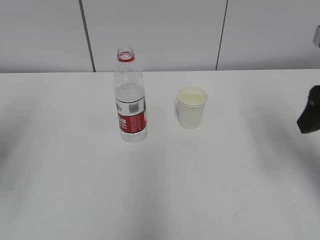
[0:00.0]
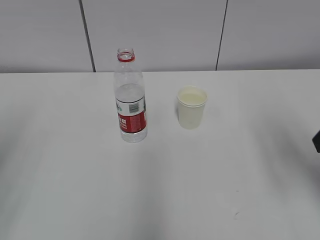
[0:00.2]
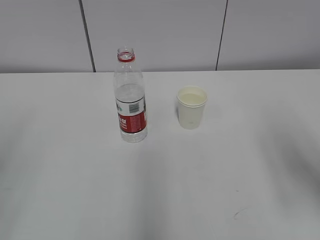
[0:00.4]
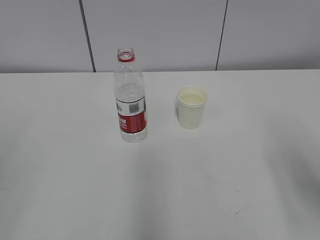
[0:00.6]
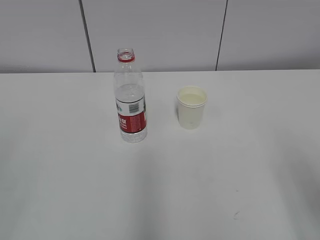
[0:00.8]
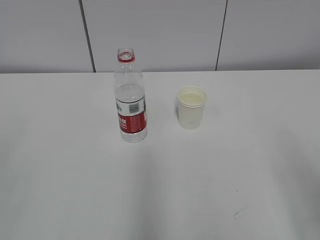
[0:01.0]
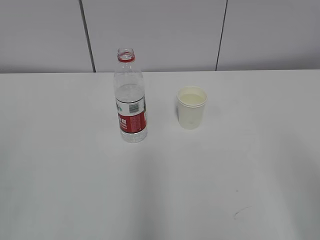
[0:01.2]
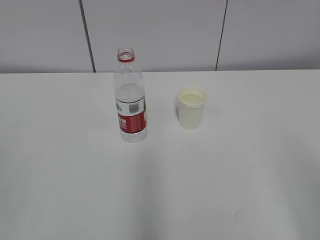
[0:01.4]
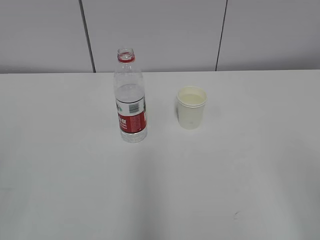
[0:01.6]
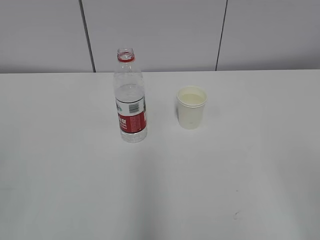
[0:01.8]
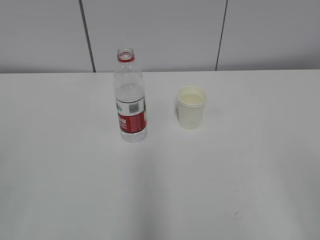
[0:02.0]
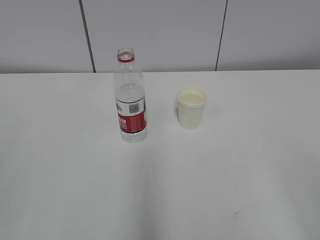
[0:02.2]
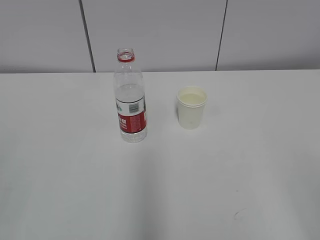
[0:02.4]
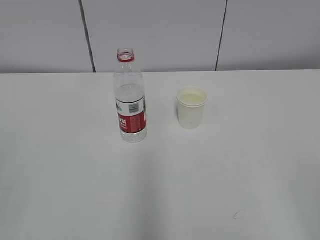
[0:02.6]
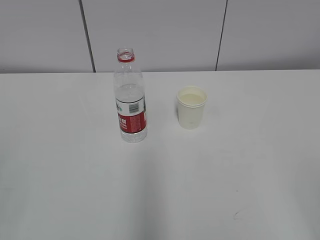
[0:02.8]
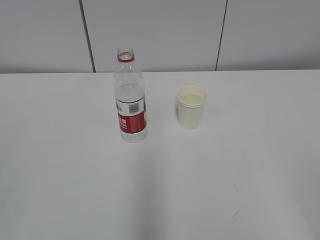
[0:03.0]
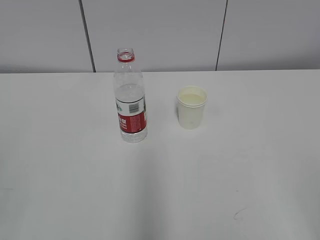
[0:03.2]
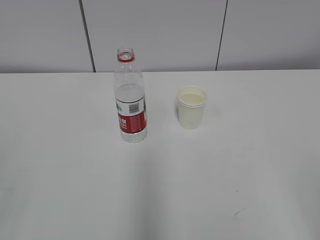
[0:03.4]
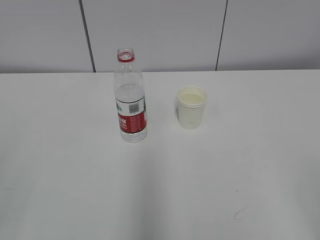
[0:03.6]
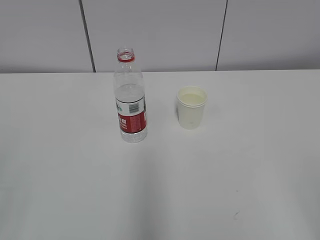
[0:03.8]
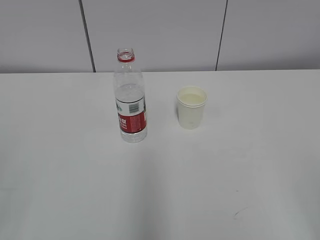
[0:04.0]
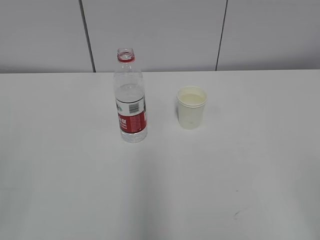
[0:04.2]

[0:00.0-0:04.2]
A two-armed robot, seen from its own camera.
0:00.0 to 0:01.4: The right gripper travels backward by some 20 cm.
0:02.8 to 0:04.2: The two grippers keep their place.

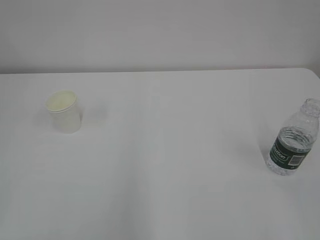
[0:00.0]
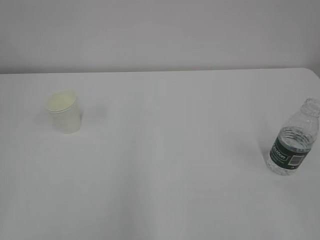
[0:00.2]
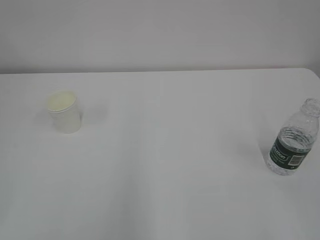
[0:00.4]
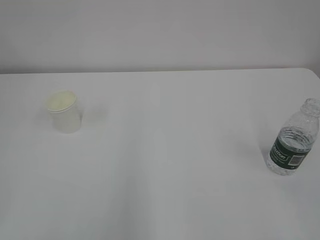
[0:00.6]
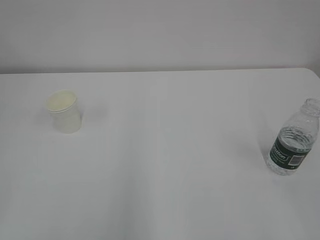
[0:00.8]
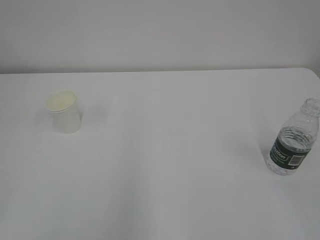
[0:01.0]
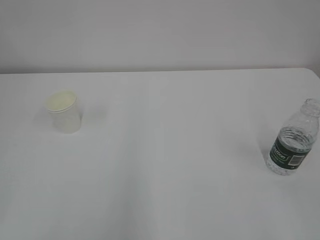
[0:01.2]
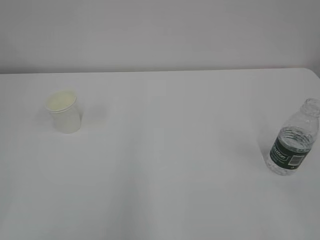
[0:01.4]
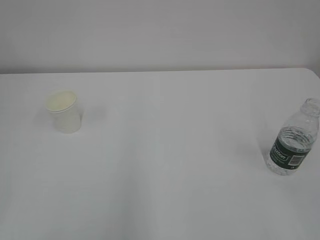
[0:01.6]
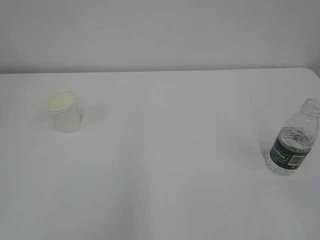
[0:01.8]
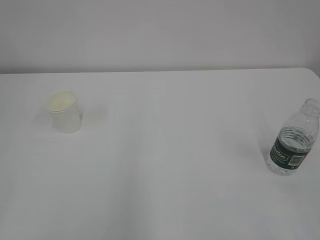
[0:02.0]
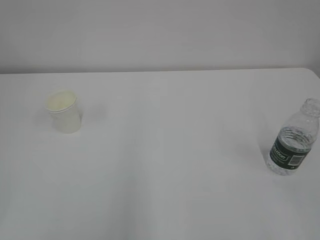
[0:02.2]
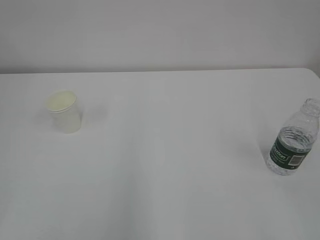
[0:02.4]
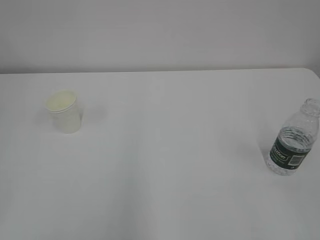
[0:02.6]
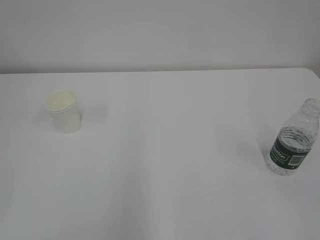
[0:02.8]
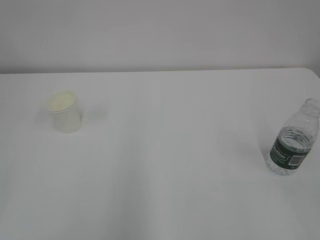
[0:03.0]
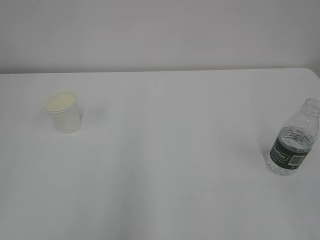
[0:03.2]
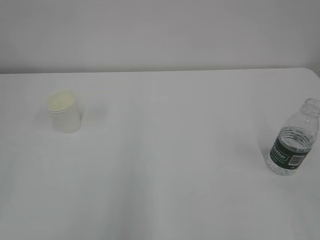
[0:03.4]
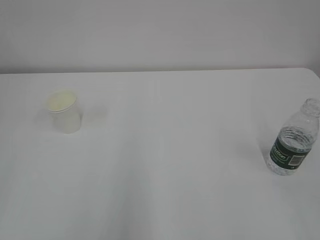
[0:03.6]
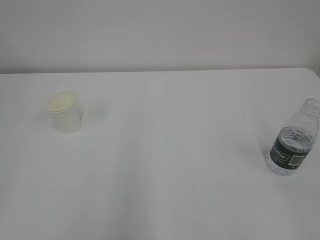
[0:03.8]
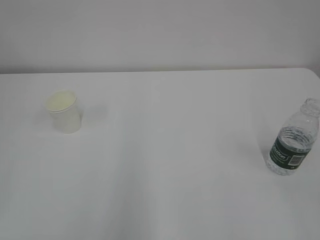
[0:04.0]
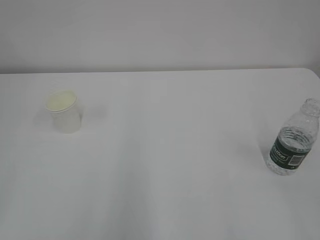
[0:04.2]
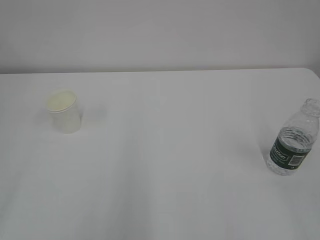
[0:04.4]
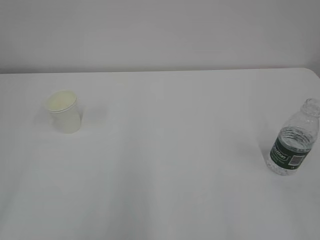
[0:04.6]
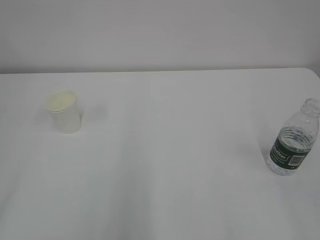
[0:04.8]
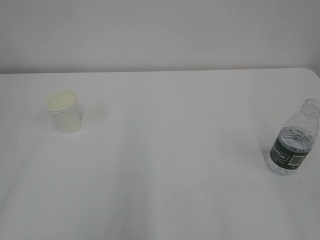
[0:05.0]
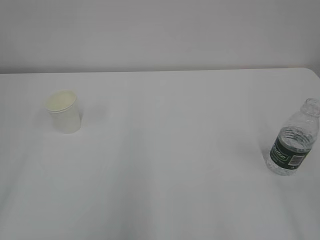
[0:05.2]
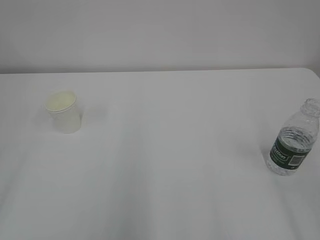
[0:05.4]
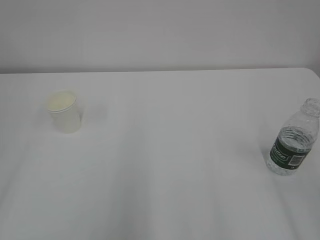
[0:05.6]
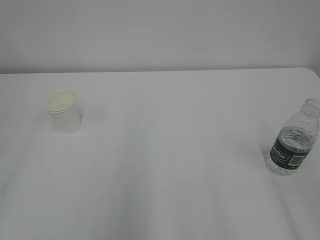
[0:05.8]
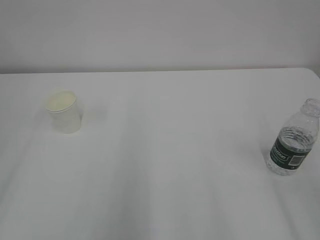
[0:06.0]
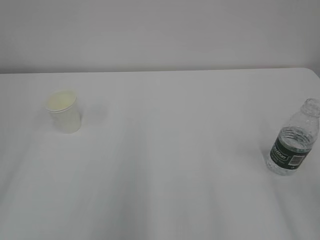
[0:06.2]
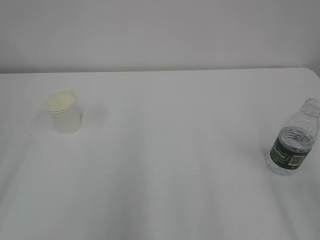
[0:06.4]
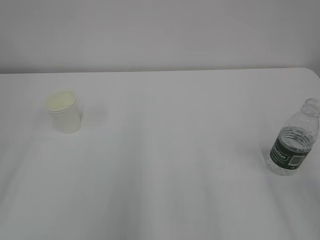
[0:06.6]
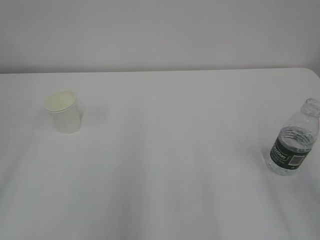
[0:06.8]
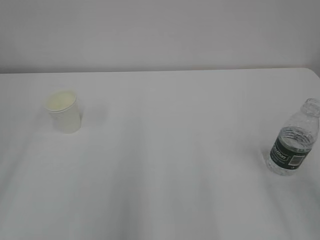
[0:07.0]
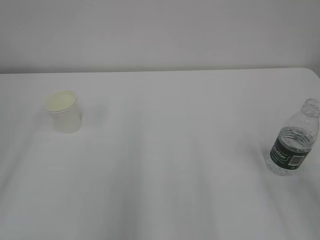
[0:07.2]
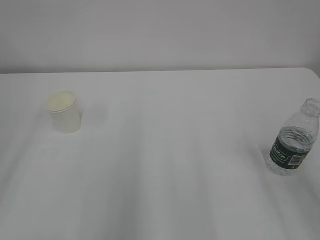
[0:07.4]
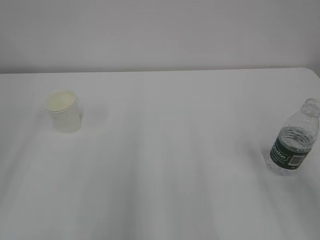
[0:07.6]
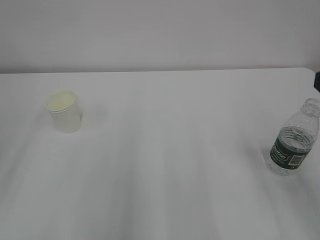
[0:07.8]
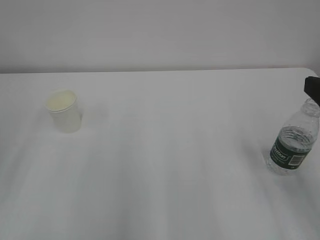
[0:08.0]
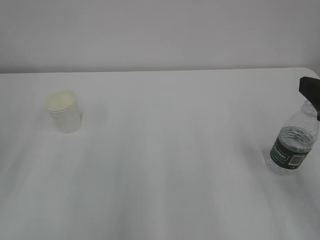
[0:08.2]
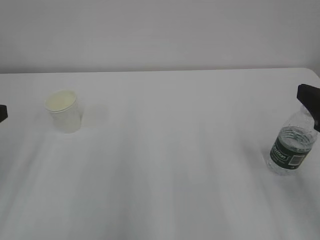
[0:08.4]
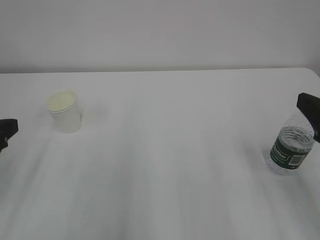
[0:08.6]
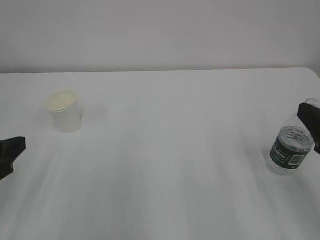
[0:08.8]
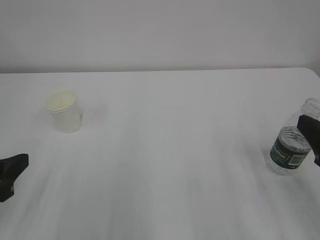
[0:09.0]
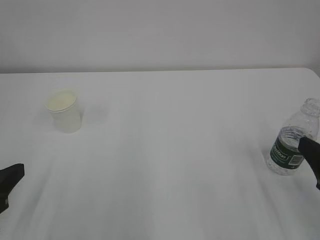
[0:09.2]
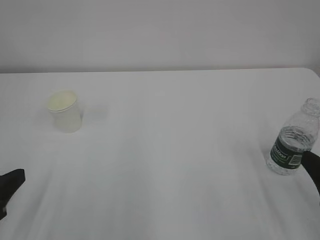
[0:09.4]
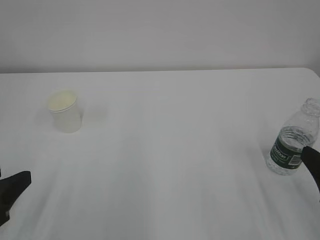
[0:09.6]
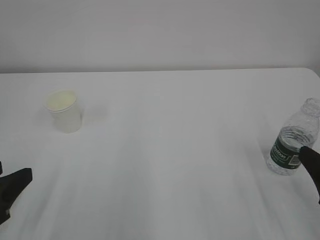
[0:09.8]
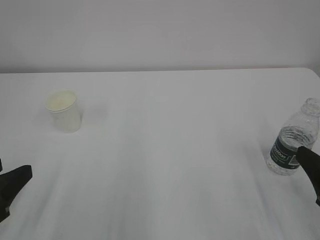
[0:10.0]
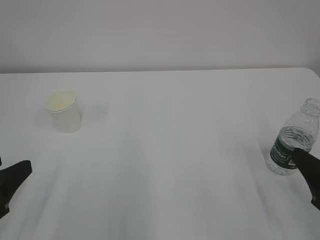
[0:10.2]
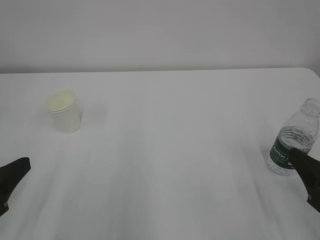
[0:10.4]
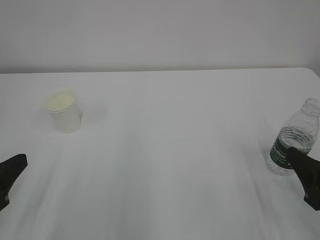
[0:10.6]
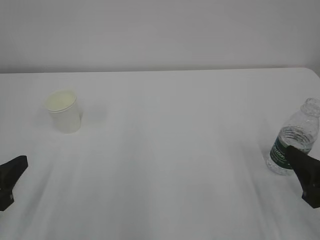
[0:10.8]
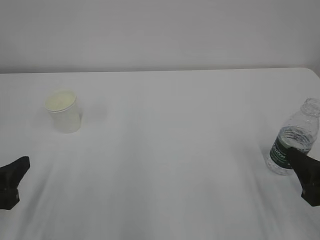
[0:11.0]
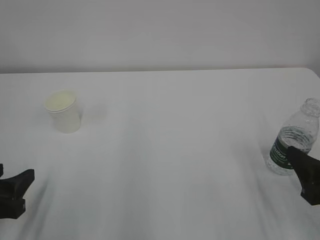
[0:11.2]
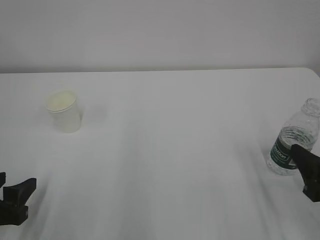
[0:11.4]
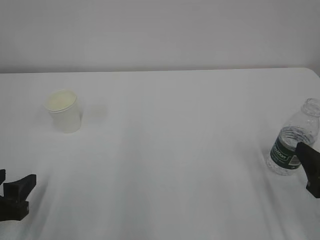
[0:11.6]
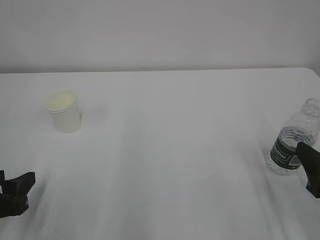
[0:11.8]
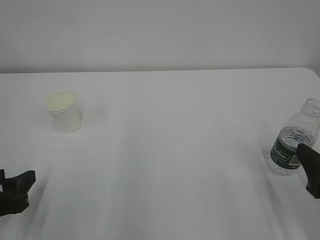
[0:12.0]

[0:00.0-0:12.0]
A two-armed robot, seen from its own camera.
0:07.6 to 0:09.0: The grippers both shift downward by roughly 10 cm.
0:09.0 to 0:10.4: The right gripper ends up roughly 5 cm from where it was.
0:10.4 to 0:12.0: The left gripper goes some 5 cm downward.

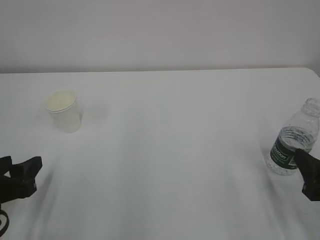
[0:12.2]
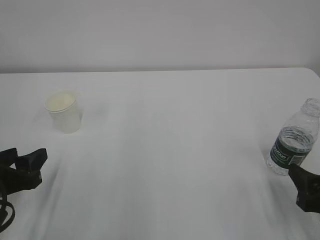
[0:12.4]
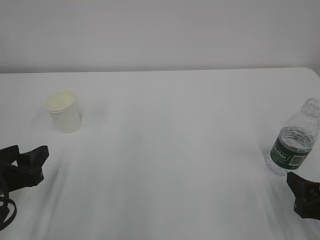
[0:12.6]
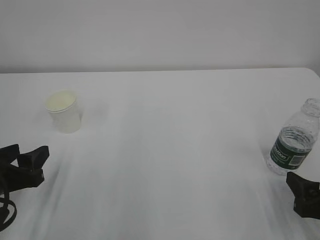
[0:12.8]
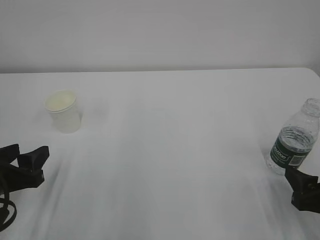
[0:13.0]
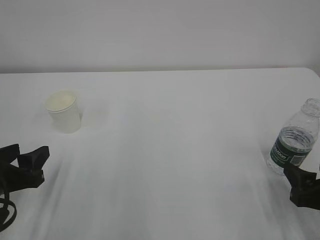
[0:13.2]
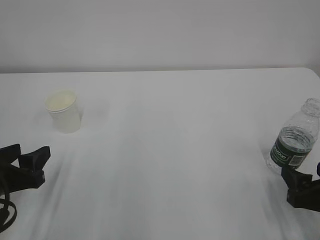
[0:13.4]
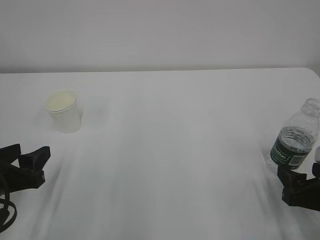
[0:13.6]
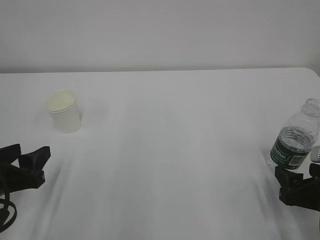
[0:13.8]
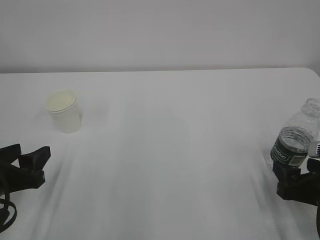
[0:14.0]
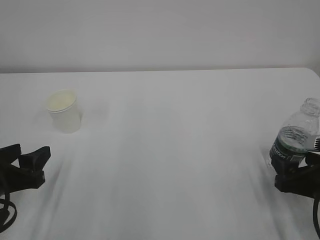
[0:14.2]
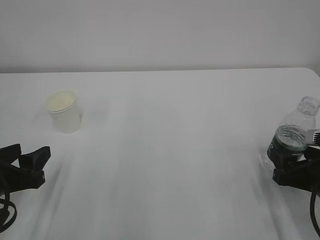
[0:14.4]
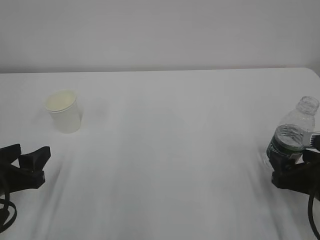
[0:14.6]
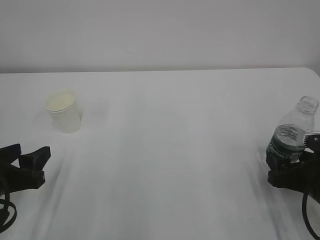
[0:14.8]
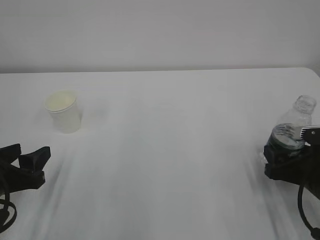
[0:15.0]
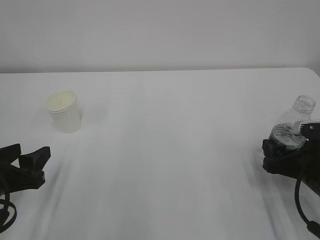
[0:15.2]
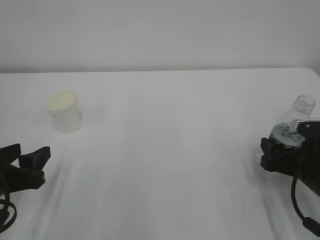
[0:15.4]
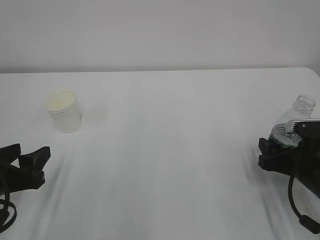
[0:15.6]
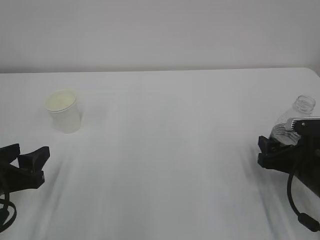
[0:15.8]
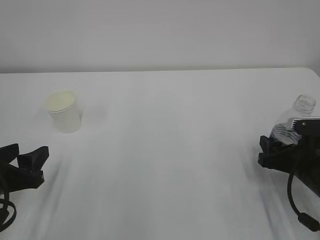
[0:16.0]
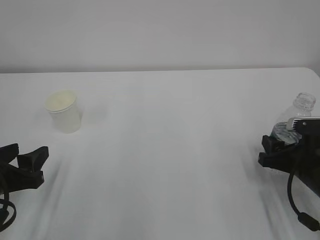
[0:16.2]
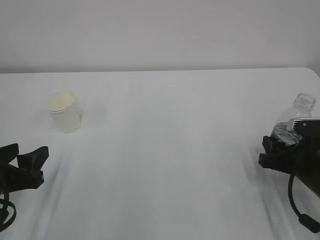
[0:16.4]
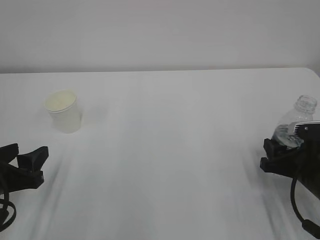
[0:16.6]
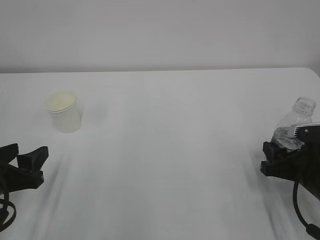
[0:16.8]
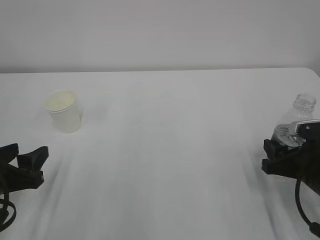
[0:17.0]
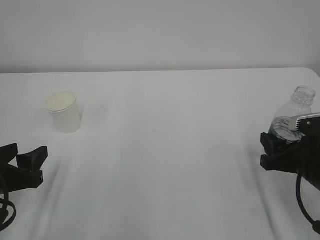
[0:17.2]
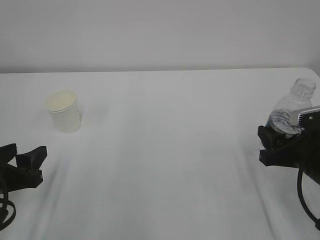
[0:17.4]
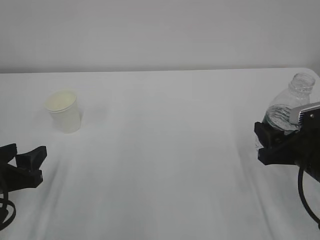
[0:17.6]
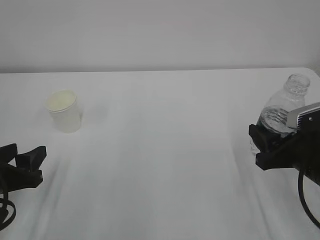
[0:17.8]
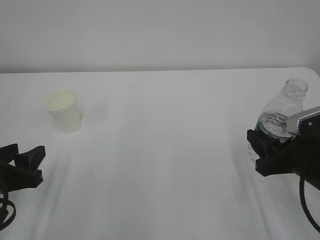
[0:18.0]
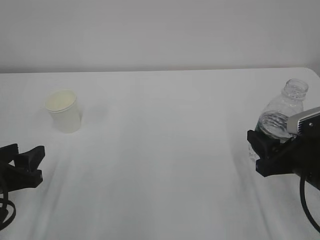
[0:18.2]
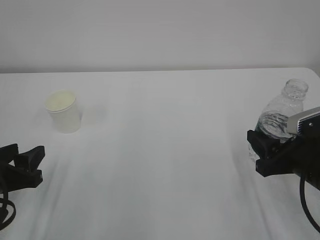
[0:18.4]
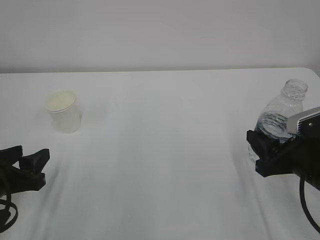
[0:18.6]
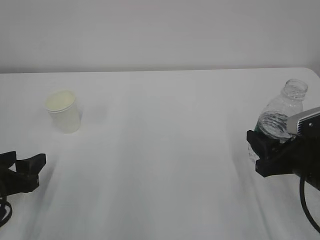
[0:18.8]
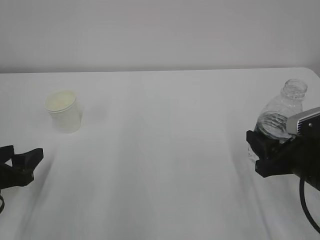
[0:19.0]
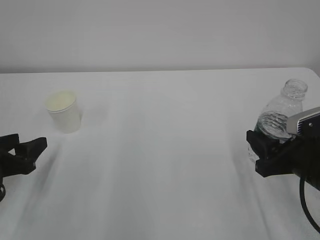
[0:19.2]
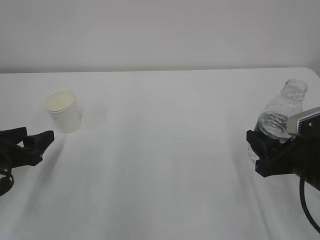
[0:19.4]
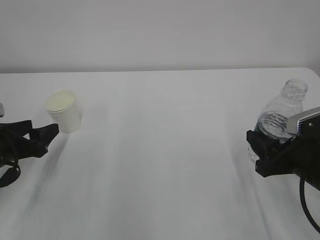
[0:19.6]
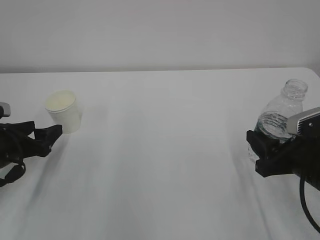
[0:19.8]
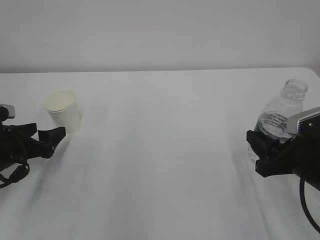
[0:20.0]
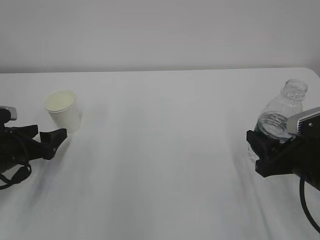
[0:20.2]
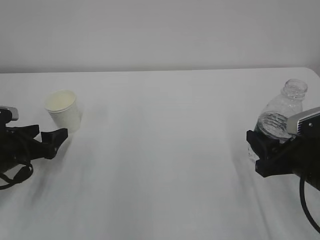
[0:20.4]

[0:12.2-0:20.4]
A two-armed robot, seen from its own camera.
0:12.2 to 0:13.8: The right gripper ends up approximately 5 cm from where it was.
0:13.8 to 0:15.4: The right gripper shifts approximately 5 cm forward.
0:15.4 to 0:17.2: The right gripper closes.
0:17.2 to 0:18.8: The grippers stay close to where they were, moving slightly.
0:18.8 to 0:20.4: The left gripper shifts some 10 cm forward, and opens up.
